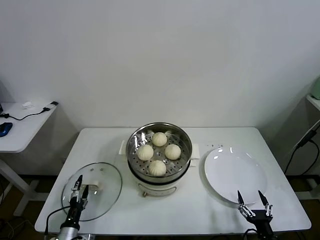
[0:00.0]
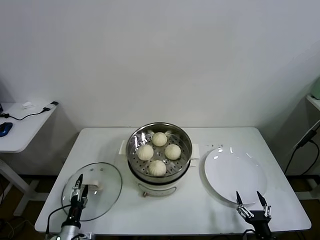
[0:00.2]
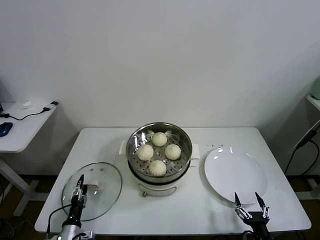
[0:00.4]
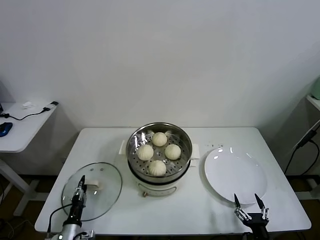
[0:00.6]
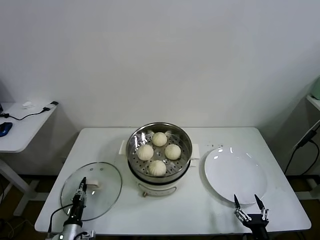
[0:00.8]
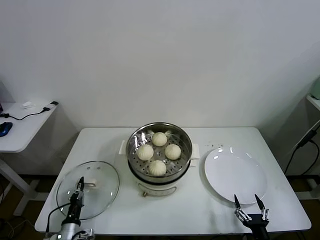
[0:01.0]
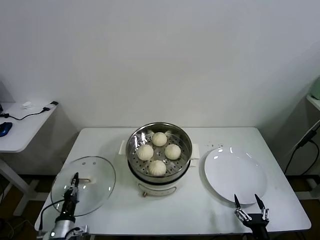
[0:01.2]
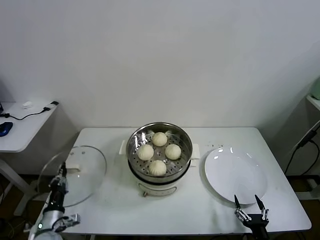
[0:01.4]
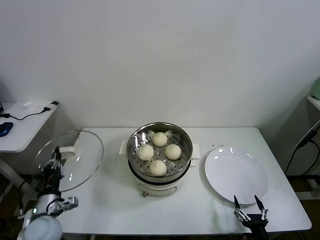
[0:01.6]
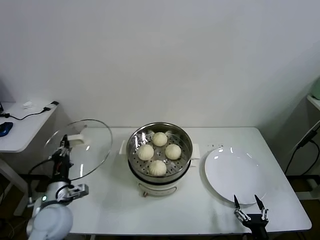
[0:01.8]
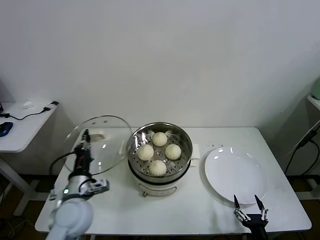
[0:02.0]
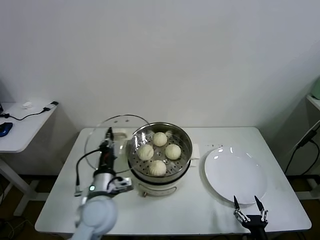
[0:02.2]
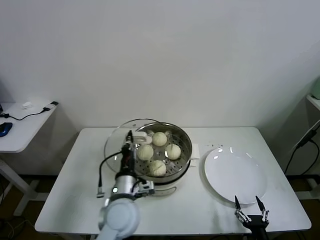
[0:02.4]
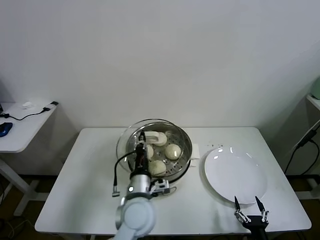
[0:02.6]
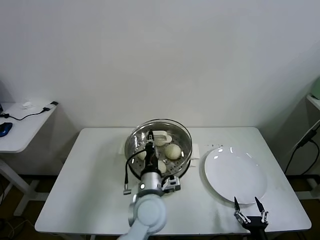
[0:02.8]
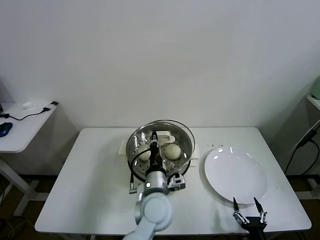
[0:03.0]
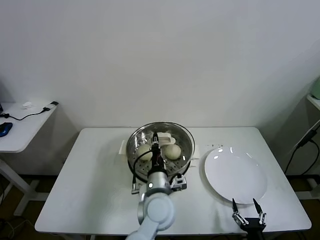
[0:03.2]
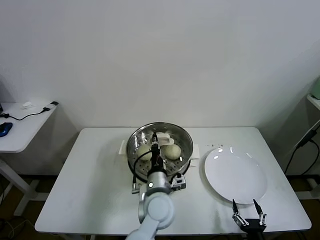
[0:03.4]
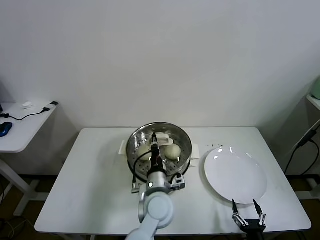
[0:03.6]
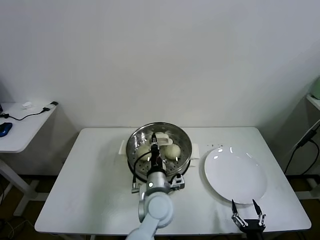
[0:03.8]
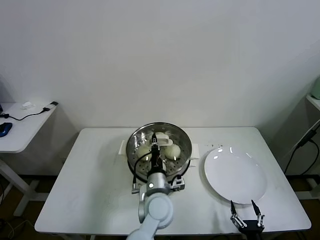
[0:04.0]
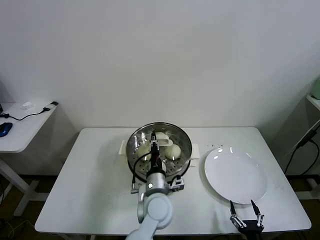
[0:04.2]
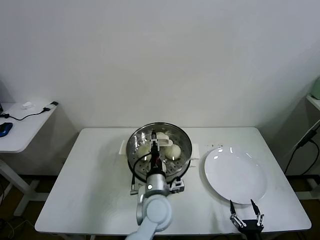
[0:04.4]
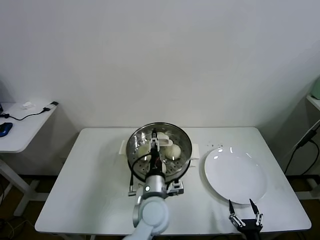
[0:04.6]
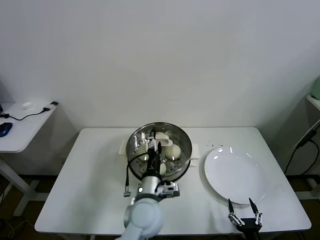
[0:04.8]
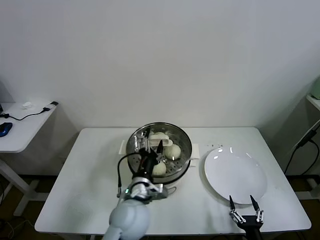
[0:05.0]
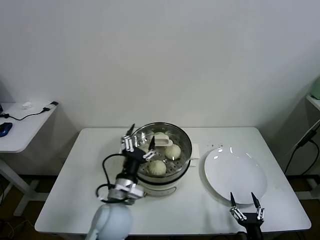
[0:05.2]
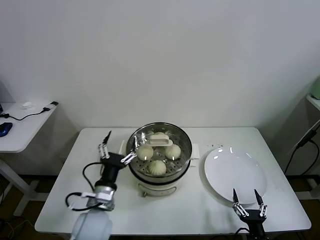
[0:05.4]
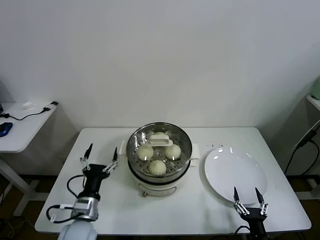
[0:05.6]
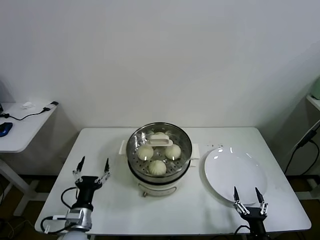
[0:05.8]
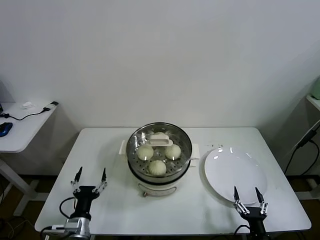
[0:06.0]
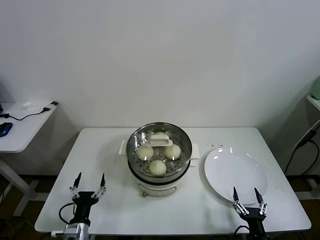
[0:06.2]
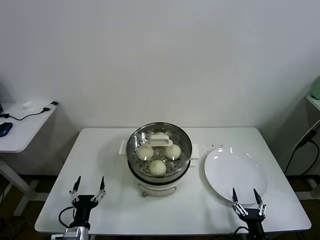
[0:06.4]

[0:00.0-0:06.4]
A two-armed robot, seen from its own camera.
Task of the whole recording: take steamed baozi put them in steamer.
Step, 0:01.2 to 0:04.6: Place the pot lid on the steamer with left gripper.
0:00.0 to 0:01.6: The left gripper moves upward, approximately 15 cm, and closes up.
0:01.6 to 0:03.2: The left gripper travels to the right by about 35 cm.
0:03.2 to 0:04.8: The left gripper opens up.
0:04.8 to 0:06.4: The left gripper goes approximately 30 cm to the left, downward and backward.
